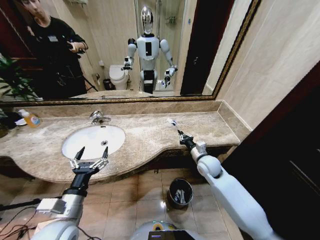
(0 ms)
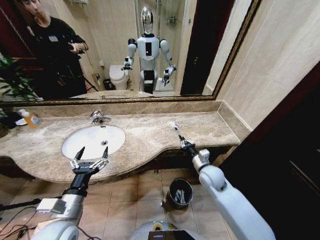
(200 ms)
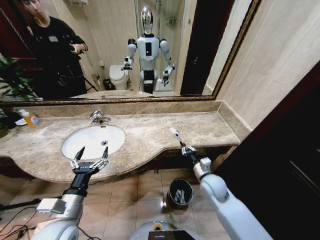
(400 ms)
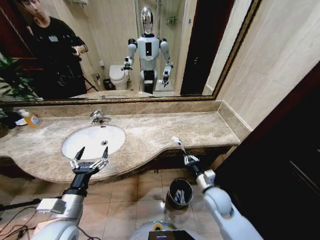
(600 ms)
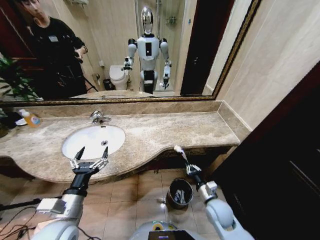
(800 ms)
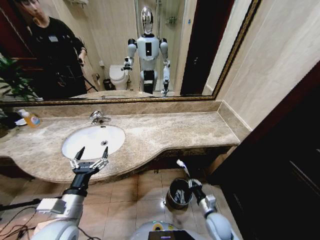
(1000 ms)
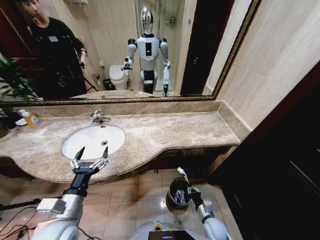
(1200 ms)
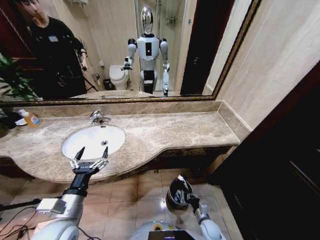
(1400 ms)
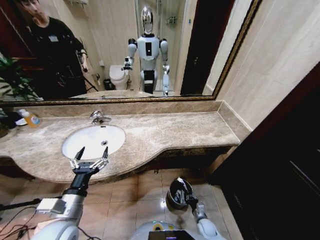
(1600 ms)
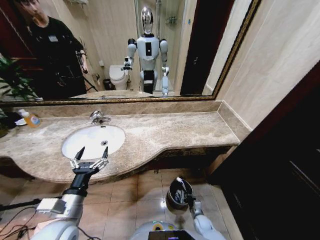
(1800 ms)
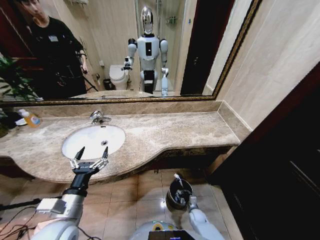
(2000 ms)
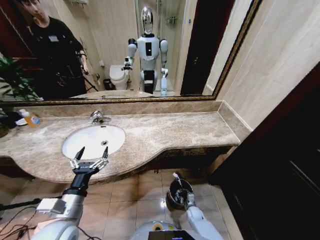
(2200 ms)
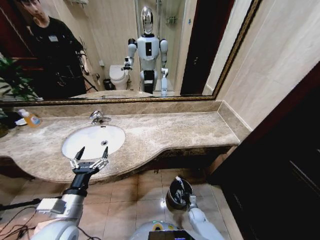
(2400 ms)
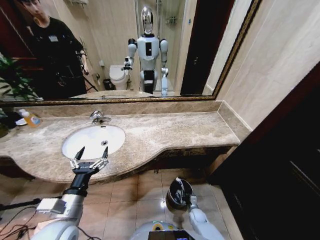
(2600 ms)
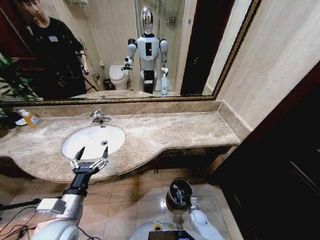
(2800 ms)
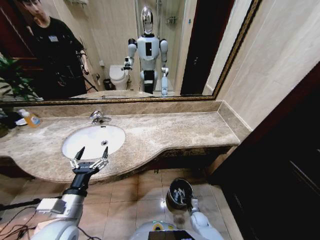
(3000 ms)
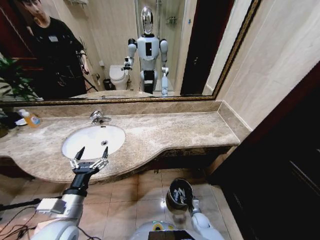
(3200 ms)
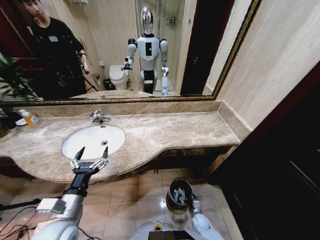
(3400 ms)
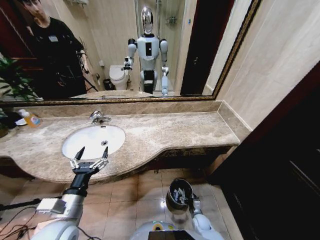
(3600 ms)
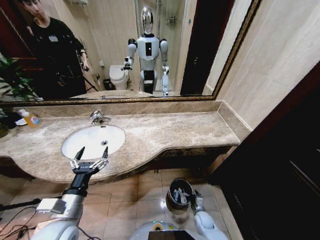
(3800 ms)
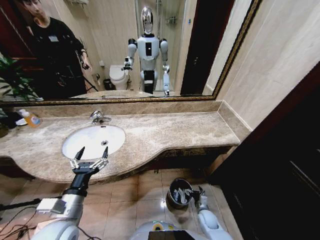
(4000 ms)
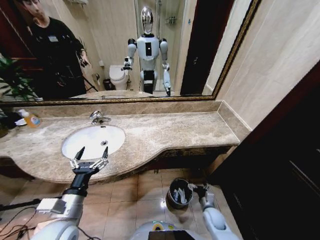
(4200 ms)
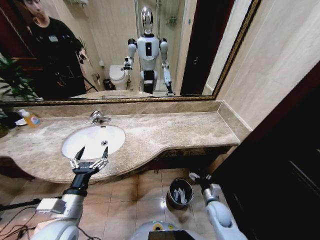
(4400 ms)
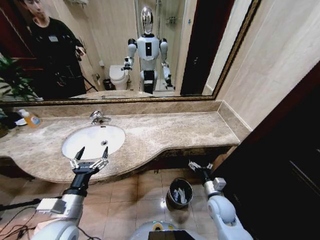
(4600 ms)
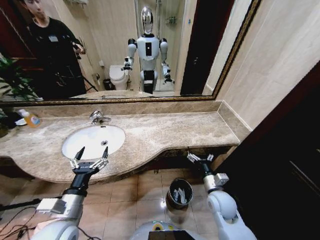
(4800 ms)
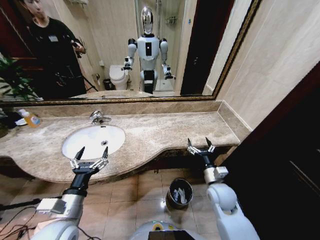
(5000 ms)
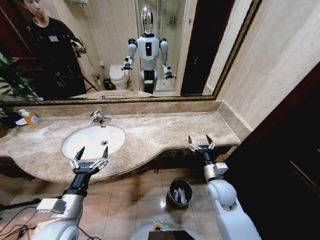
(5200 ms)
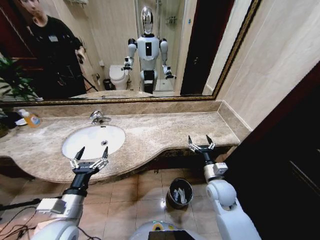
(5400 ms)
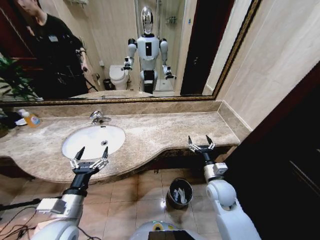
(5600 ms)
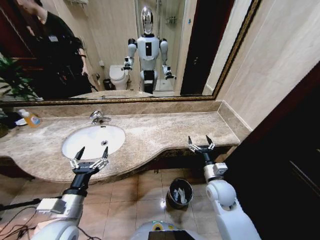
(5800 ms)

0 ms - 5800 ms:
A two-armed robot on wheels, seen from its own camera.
Task of the whole recording: Pick up the trash from the sink and place it in the trash bin.
0 ms - 1400 ms: The right gripper travels downward and backward by some 35 cm.
1400 ms - 2800 ms: The right gripper moves downward and forward, approximately 10 cm.
2800 ms - 4400 ms: The right gripper travels upward by roughly 20 cm, and opens up.
4400 ms - 5800 ms: The right gripper travels upward by about 15 cm.
